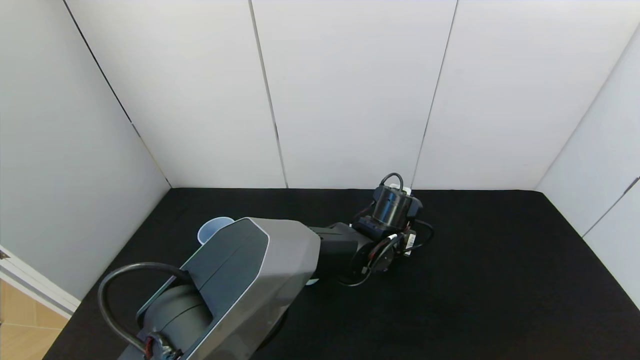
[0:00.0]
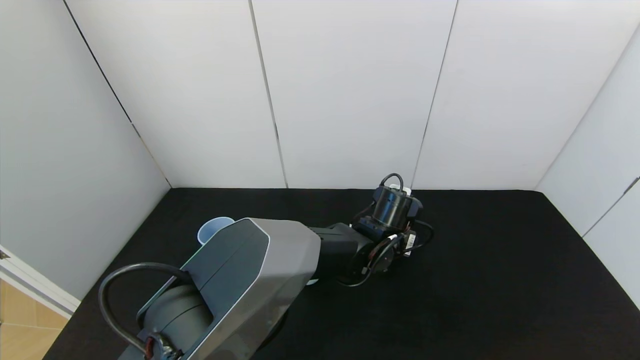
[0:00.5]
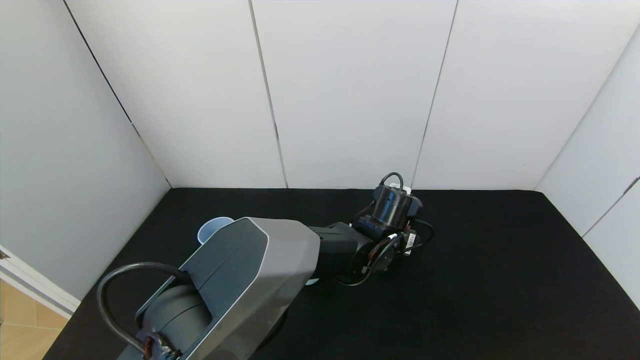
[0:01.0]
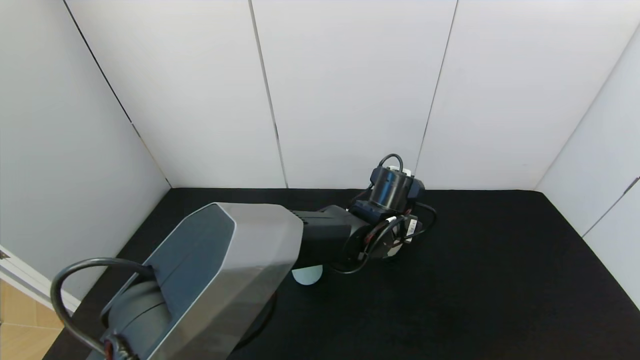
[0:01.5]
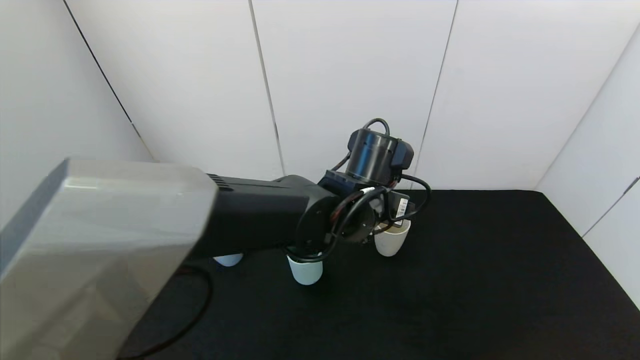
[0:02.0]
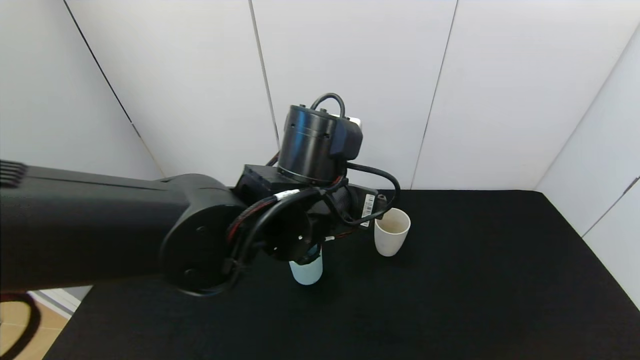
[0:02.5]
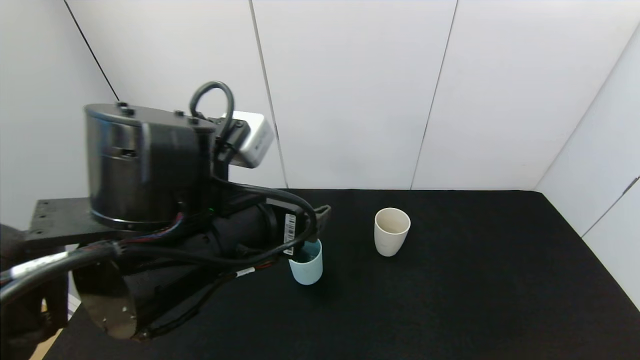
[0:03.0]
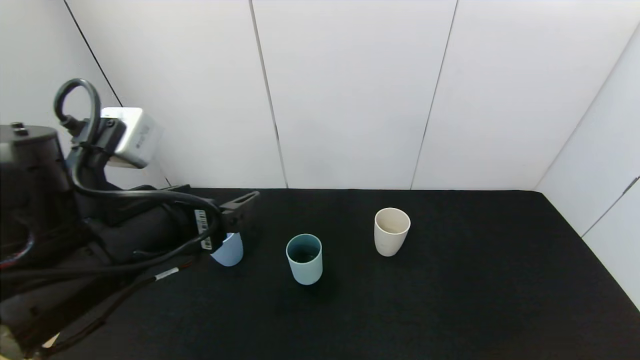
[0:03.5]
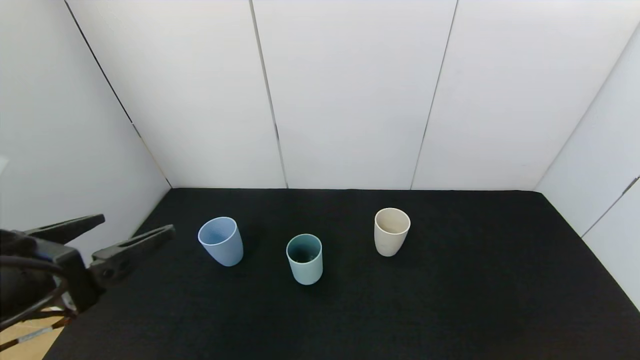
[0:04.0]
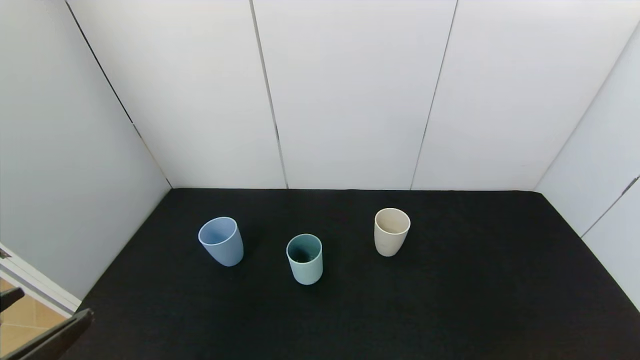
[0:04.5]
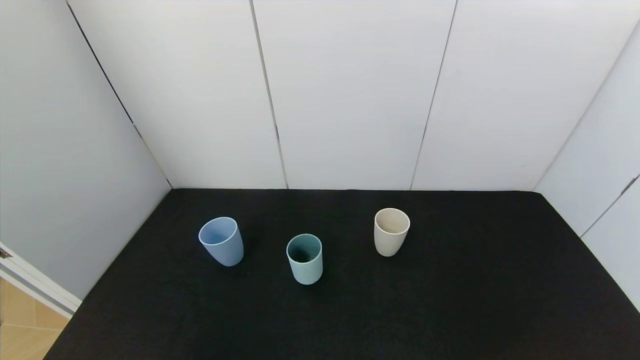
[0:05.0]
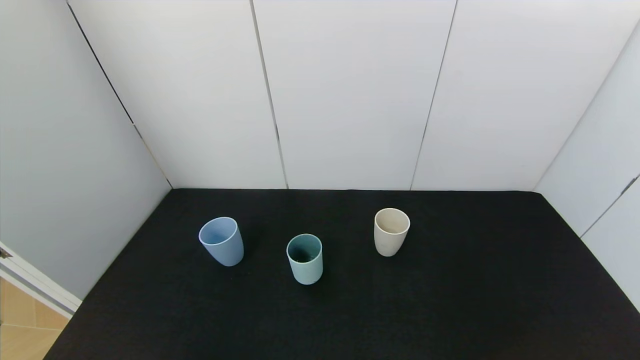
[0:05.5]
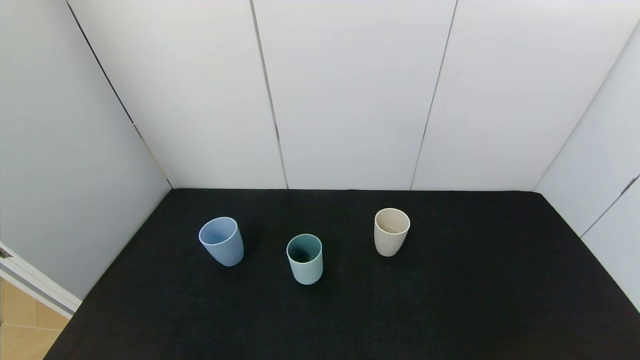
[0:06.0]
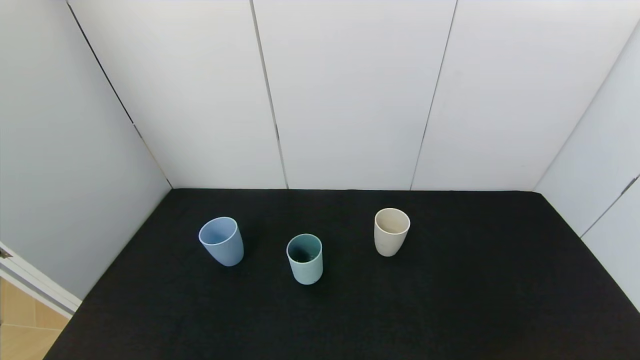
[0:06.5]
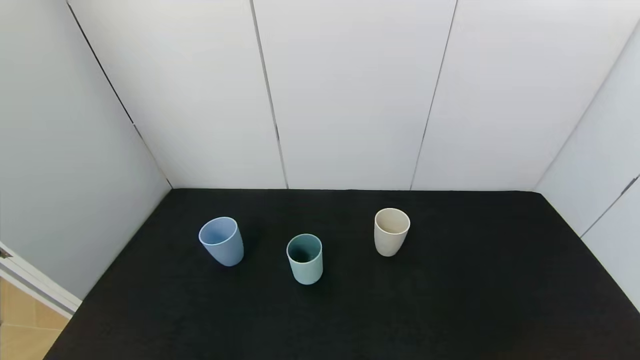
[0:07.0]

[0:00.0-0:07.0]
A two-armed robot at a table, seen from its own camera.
Task of the whole recording: use the gripper to pour the water into the other two cups on black table.
0:00.0 to 0:02.0: The left gripper moves upward and backward, roughly 10 cm, and opens up.
0:02.0 to 0:03.5: The left gripper shifts some 25 cm to the left and backward.
0:03.5 to 0:05.0: The left gripper goes about 25 cm backward, to the left and downward.

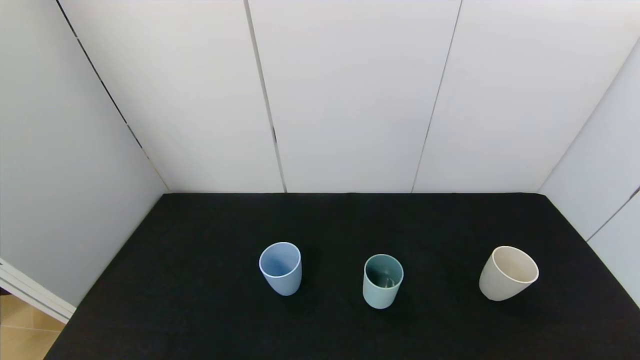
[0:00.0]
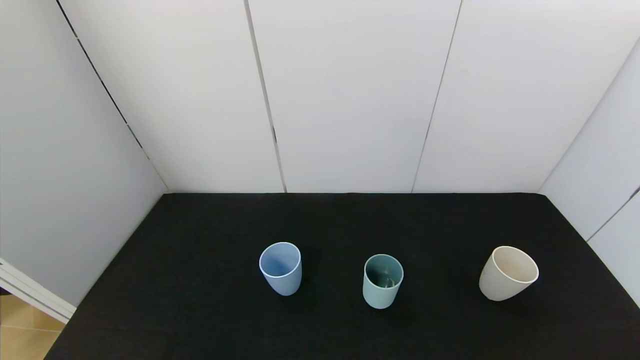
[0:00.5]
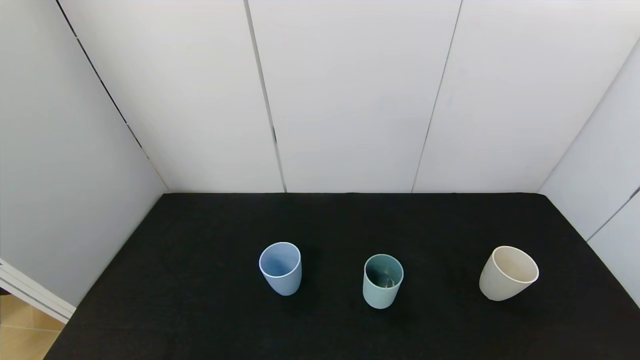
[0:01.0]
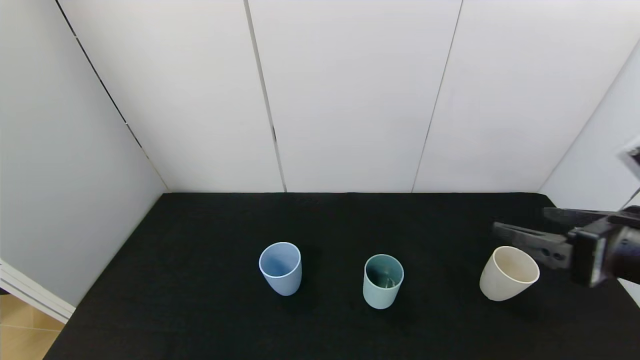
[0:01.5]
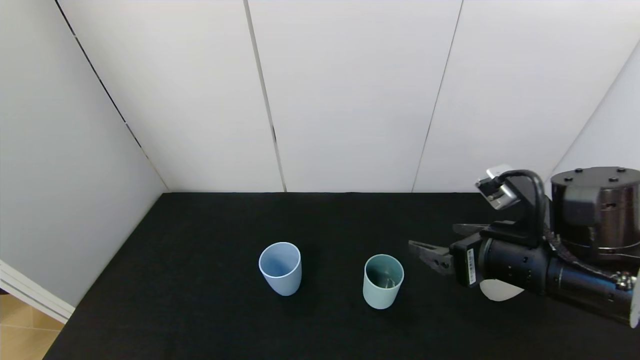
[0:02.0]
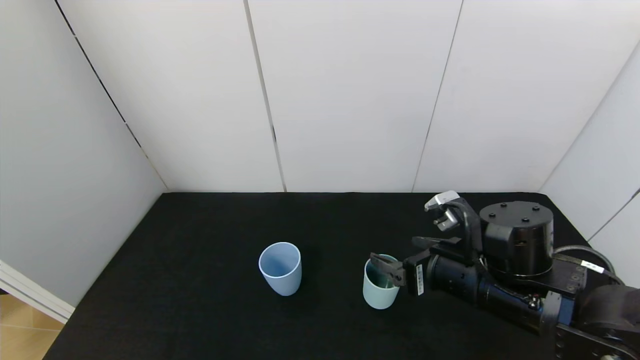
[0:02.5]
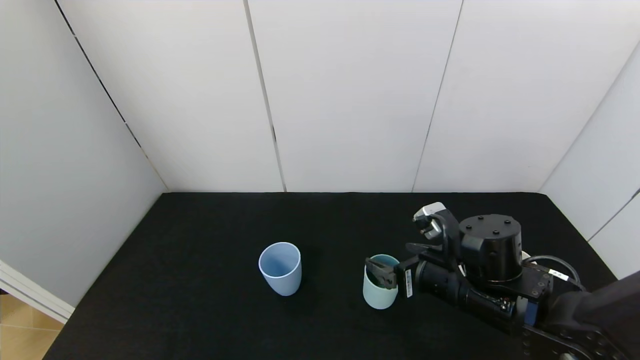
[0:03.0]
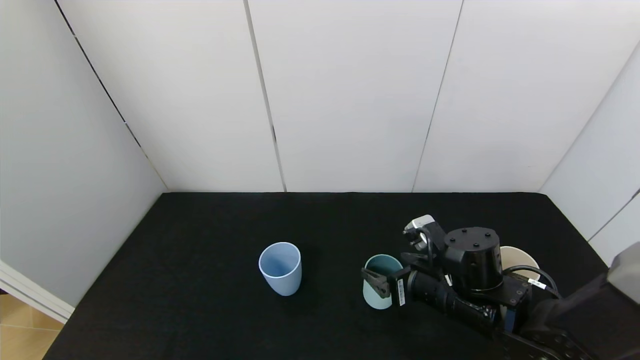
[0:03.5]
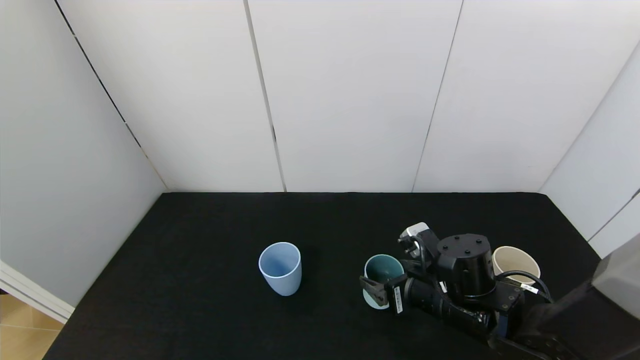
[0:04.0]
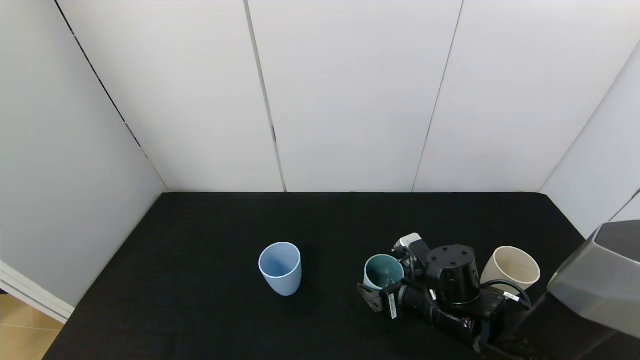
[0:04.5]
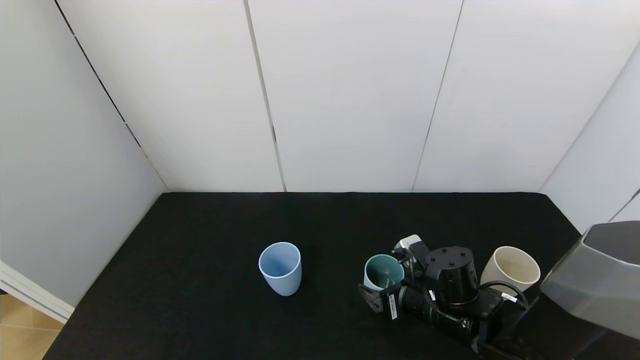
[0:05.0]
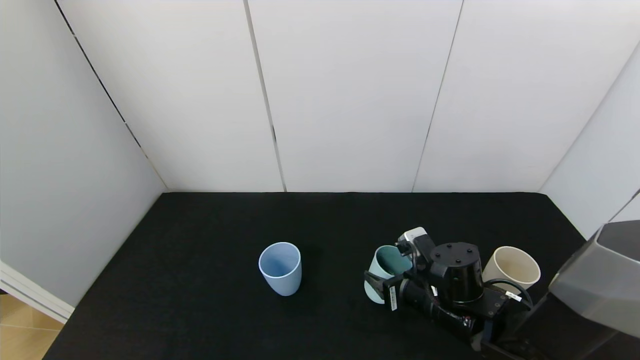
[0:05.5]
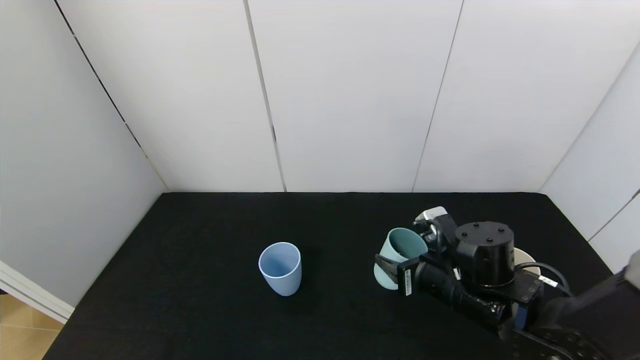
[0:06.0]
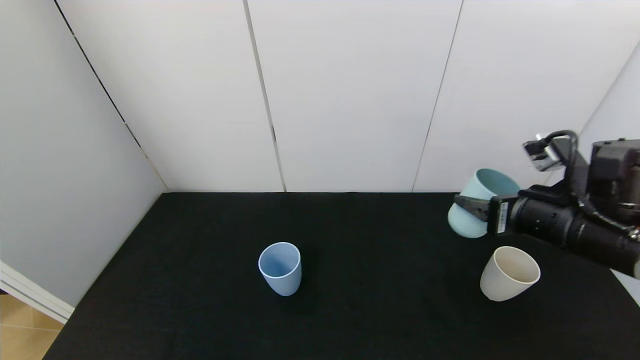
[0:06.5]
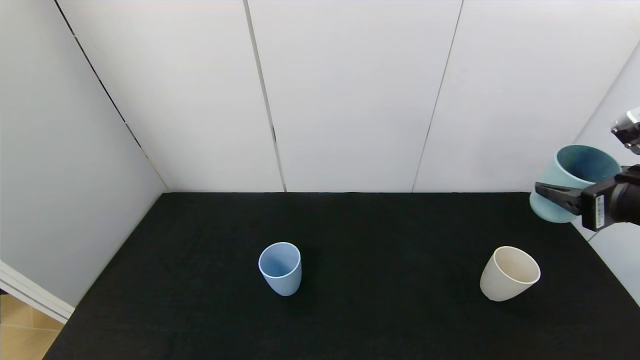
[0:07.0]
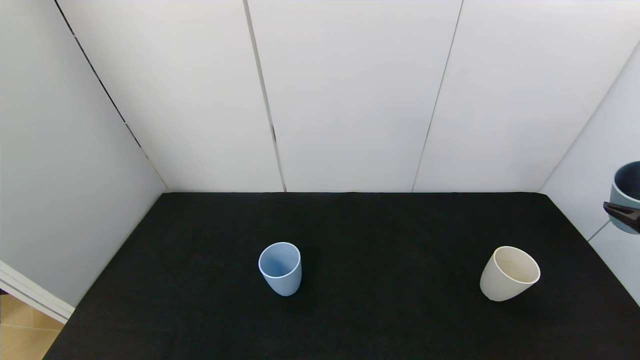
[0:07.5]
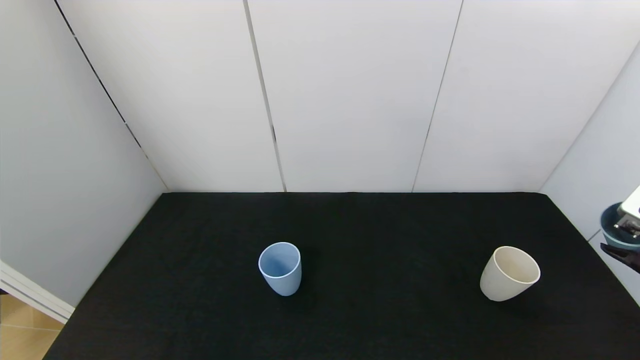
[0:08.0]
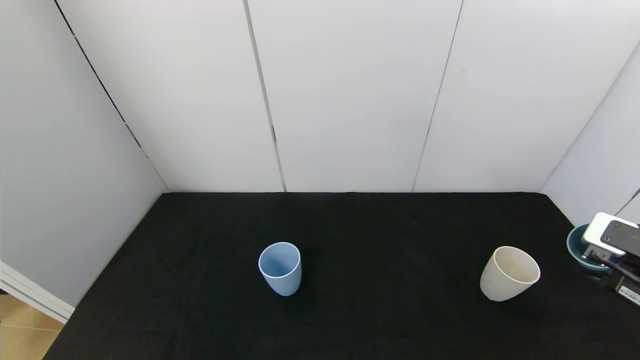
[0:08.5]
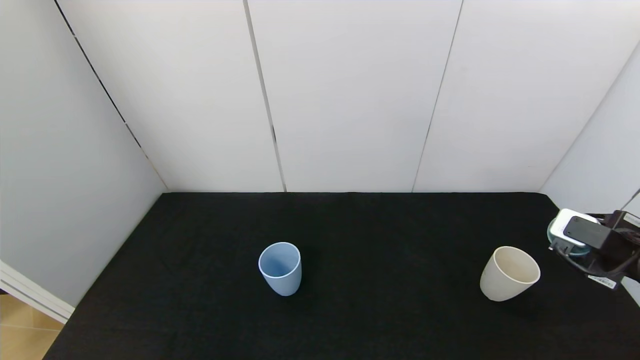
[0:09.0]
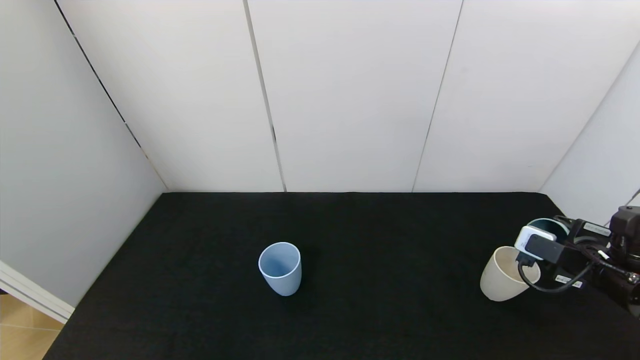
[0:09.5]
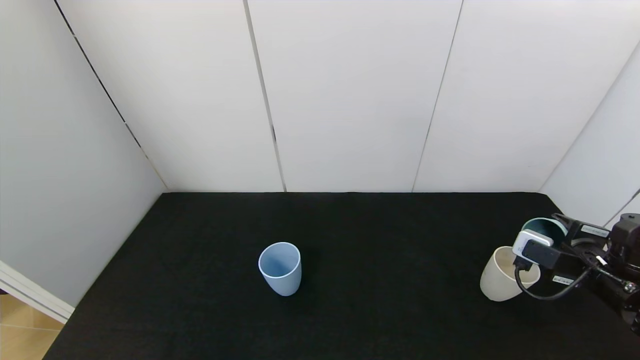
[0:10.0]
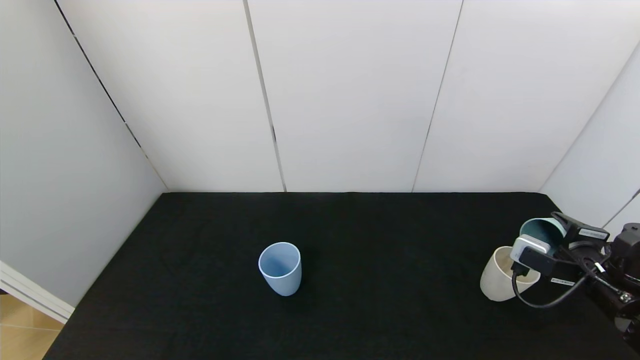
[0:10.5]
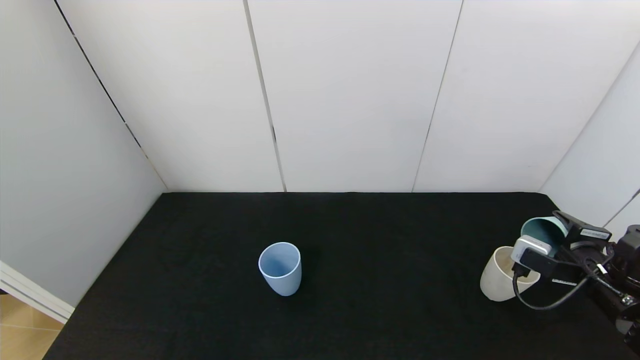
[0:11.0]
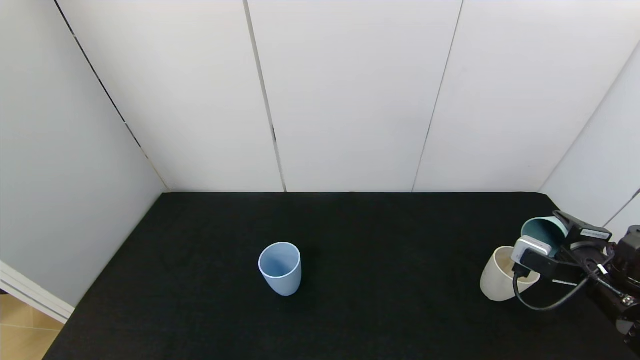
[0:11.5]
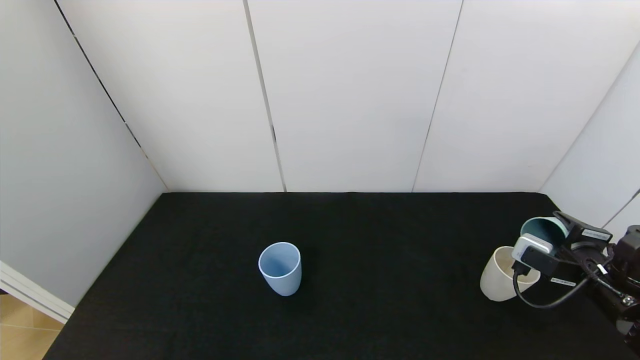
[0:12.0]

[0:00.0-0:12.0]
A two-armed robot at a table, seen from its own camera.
Task of the whole recording: use the gripper to pour the water into the other two cups on black table.
Step, 0:00.0 to 0:05.0: Grasp the green cup with the right gripper.
0:00.0 to 0:02.0: The right gripper shifts roughly 25 cm forward and to the left.
0:02.0 to 0:04.0: The right gripper travels downward and to the left by approximately 10 cm.
0:04.0 to 0:06.0: The right gripper closes.
0:06.0 to 0:08.0: The right gripper moves to the right and upward, some 25 cm.
0:08.0 to 0:10.0: The right gripper goes about 10 cm downward and forward.
0:10.0 to 0:12.0: There are only small adjustments of the grippers.

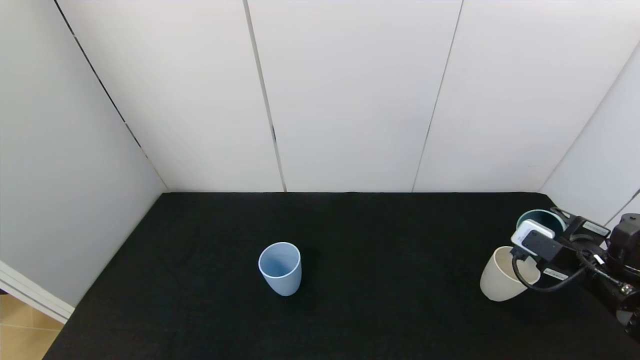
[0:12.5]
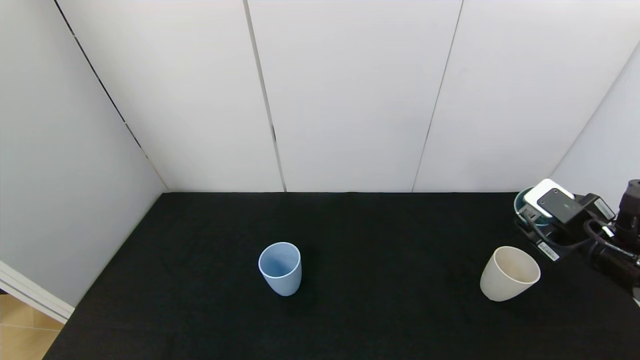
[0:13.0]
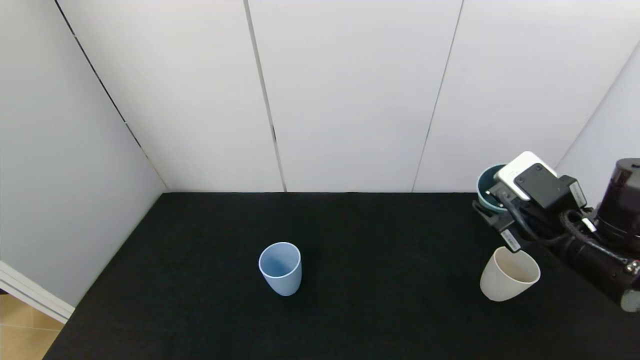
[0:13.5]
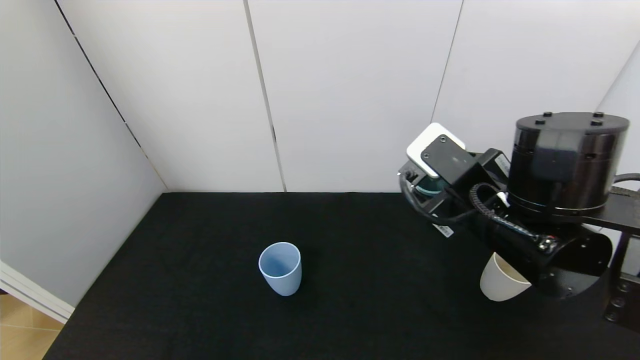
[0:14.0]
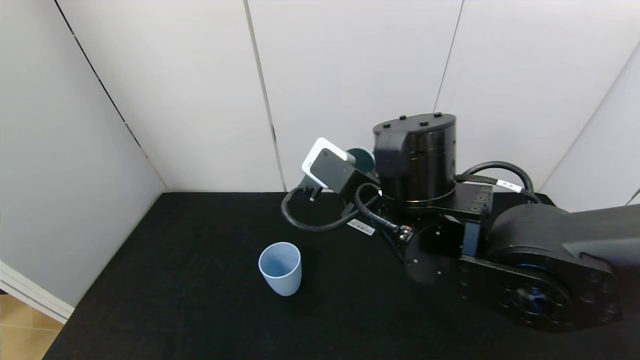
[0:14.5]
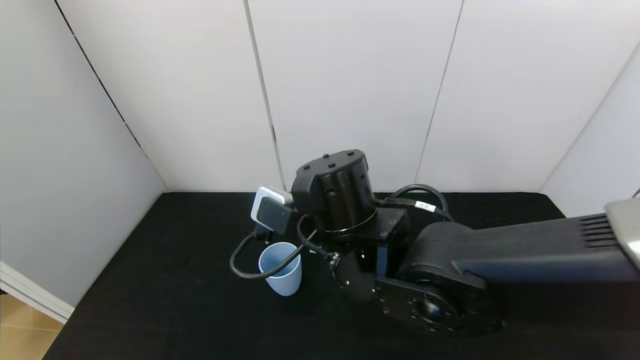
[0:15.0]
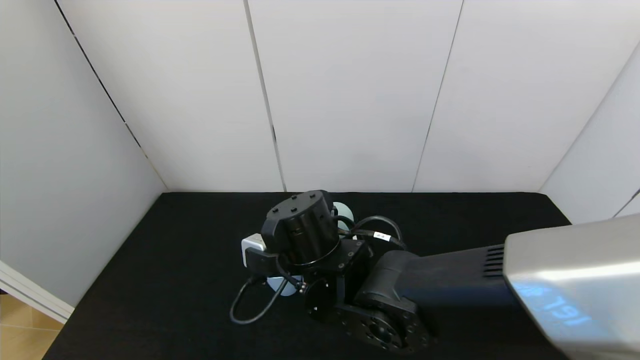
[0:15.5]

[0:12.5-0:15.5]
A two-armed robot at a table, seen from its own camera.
Task of the whole recording: use the gripper to pour the water into the other two cups on black table.
0:12.5 to 0:14.0: The right gripper is displaced to the left and upward by some 25 cm.
0:14.0 to 0:15.5: The right gripper travels to the left and downward by about 20 cm.
